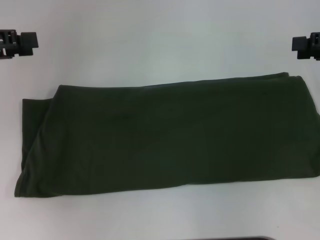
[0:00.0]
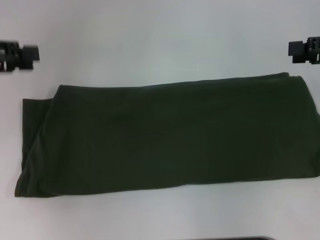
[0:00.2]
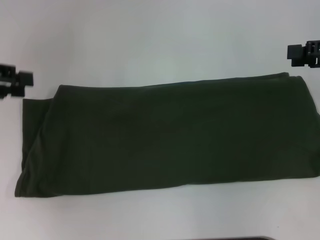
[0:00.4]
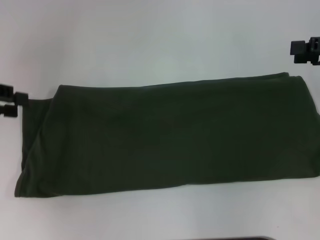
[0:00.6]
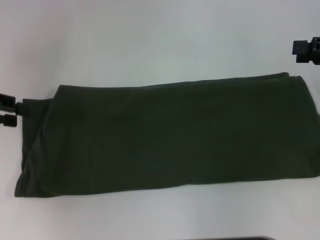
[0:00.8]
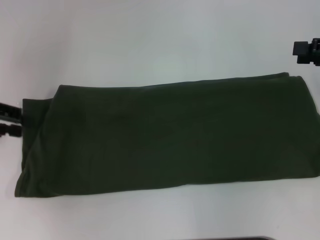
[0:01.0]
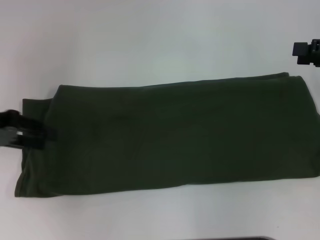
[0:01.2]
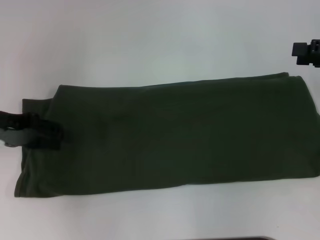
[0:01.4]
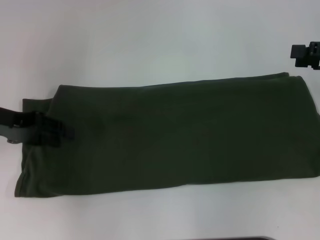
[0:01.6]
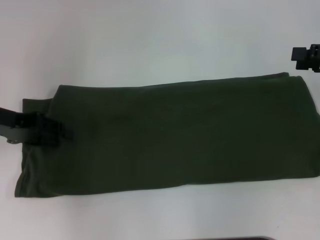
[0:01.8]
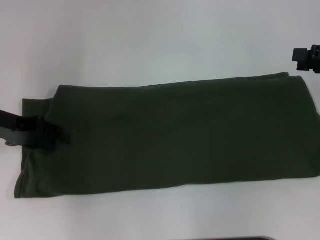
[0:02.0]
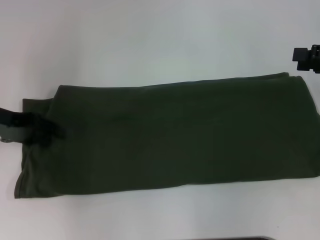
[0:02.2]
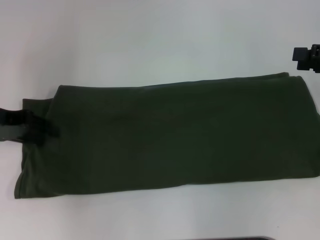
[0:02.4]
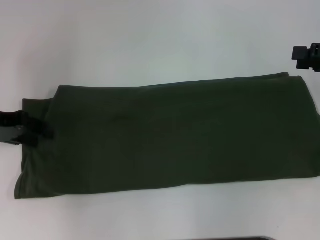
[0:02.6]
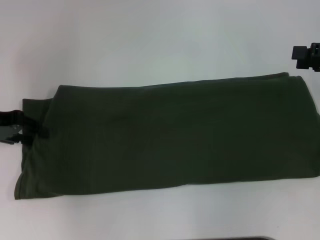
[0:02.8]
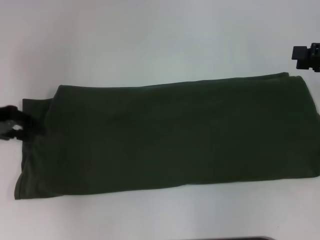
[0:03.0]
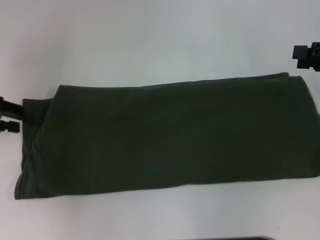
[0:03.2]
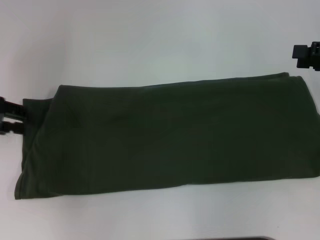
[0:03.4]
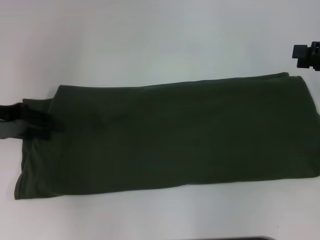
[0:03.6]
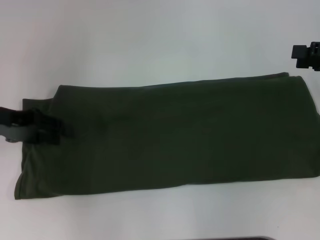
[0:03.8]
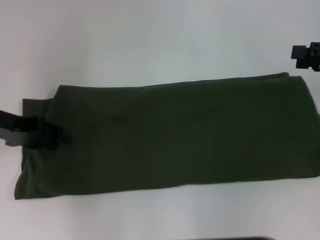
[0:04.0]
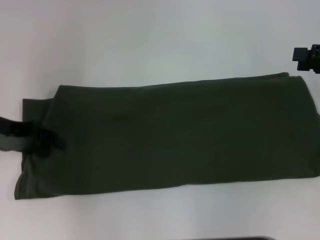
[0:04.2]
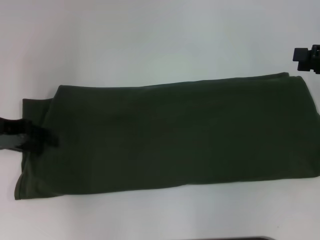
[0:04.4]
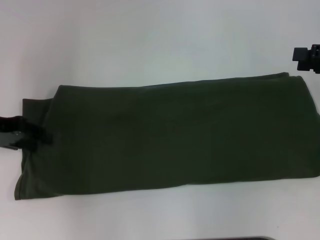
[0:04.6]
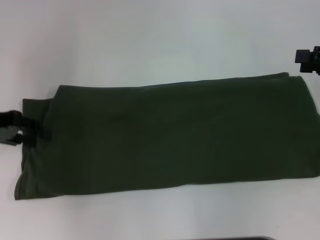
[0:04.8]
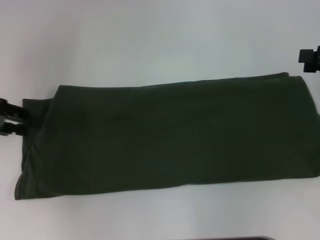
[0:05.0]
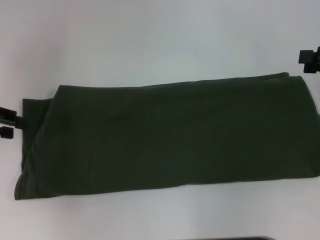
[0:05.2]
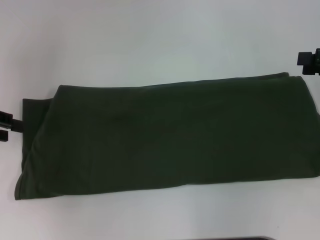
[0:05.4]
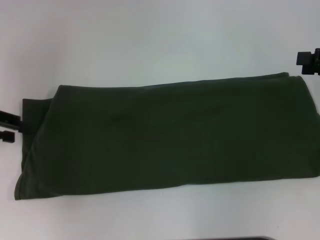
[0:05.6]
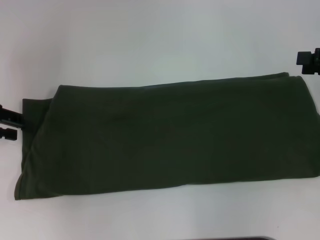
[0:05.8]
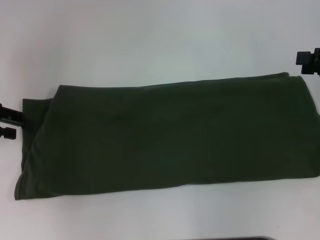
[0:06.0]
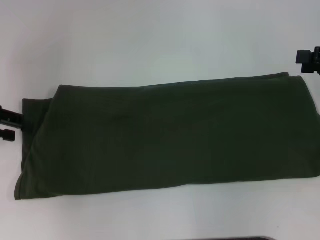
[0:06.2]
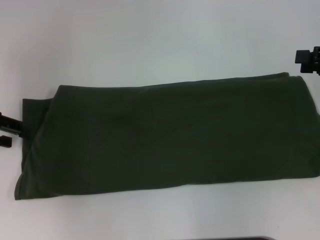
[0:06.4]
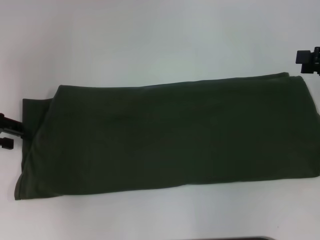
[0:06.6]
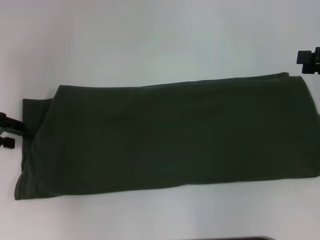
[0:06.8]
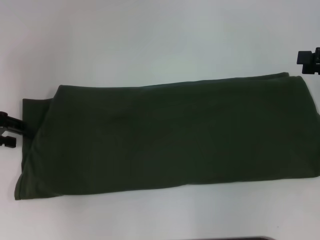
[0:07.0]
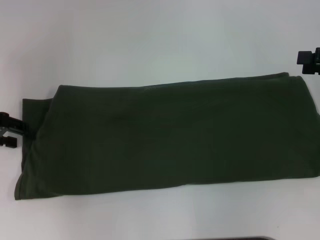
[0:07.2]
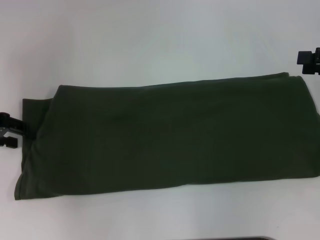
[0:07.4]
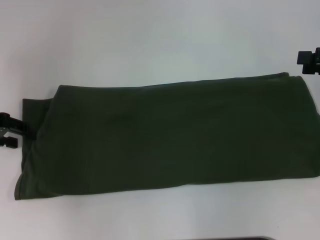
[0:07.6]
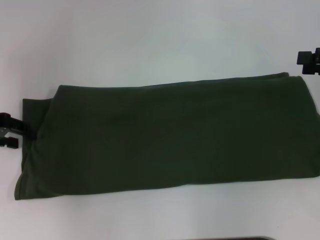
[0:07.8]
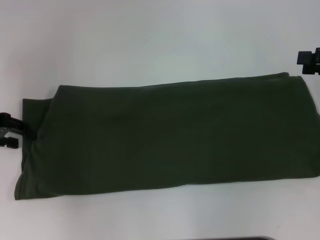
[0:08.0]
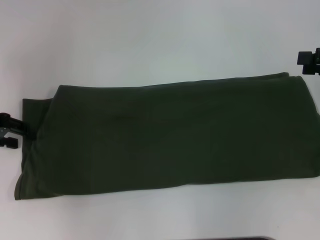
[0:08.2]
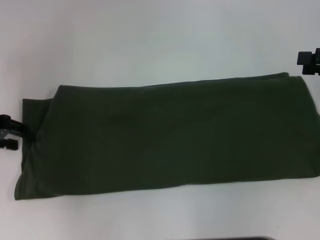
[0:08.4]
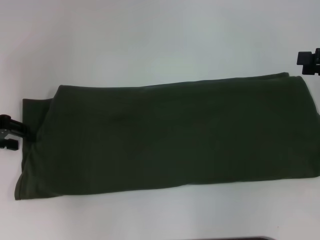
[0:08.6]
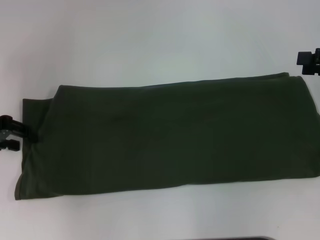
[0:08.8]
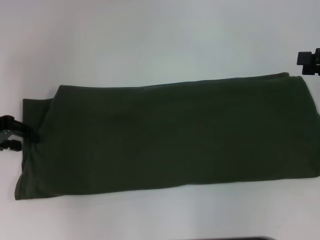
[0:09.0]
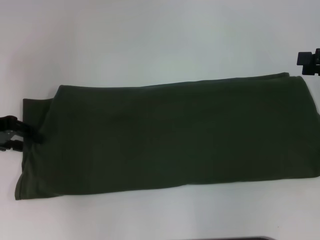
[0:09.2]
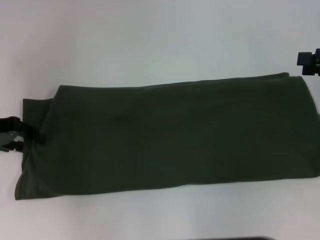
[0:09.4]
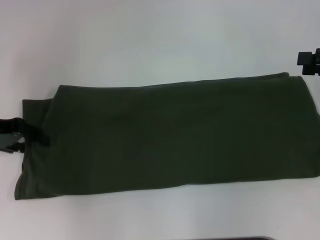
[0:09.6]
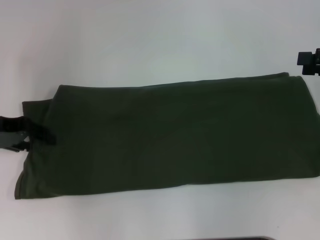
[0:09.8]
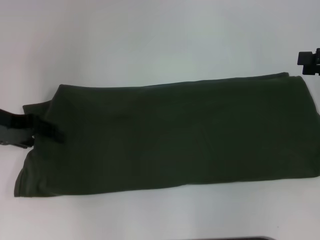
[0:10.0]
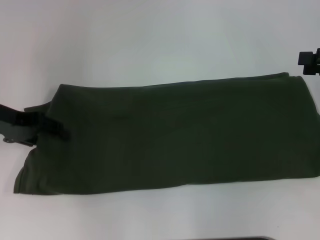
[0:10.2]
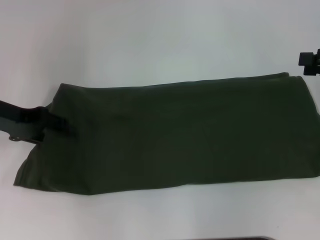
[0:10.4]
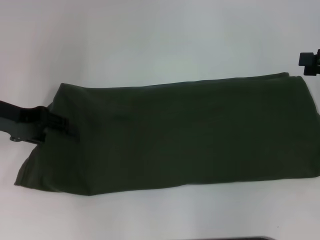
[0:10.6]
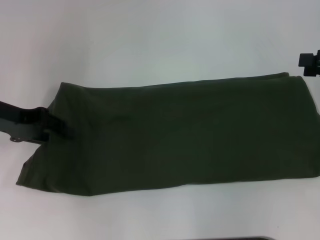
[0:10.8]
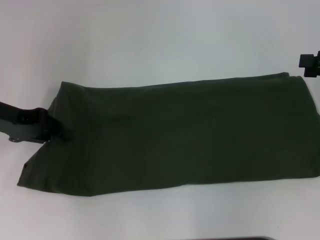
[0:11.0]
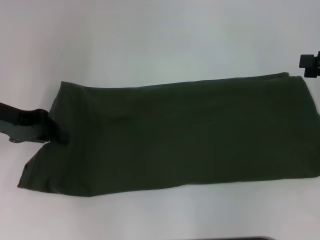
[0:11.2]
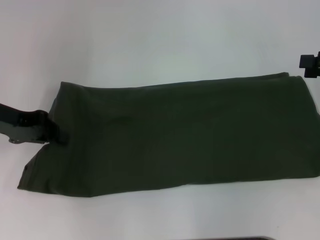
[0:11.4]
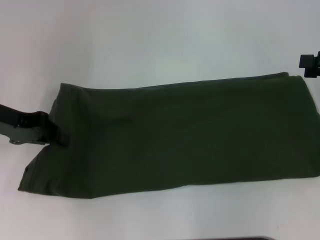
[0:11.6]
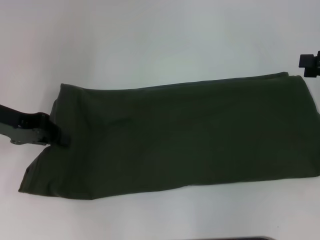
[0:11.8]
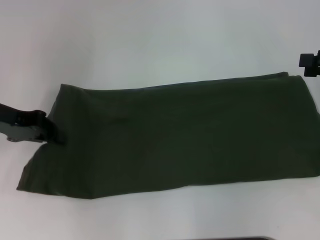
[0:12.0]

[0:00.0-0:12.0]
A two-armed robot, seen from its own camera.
0:00.0 to 0:01.6: The left gripper moves downward, roughly 10 cm.
0:01.6 to 0:04.4: There are only small adjustments of the grippers.
0:04.4 to 0:07.6: The grippers move only a little.
0:07.6 to 0:09.0: Both grippers stay put.
0:09.0 to 0:10.4: There are only small adjustments of the grippers.
0:10.4 to 0:12.0: The left gripper closes.

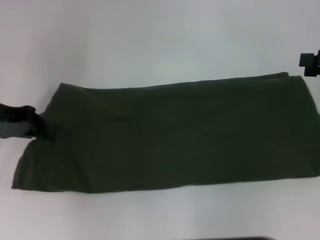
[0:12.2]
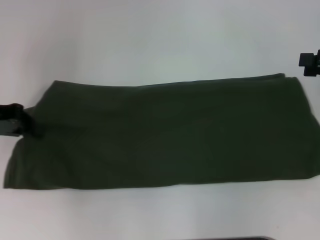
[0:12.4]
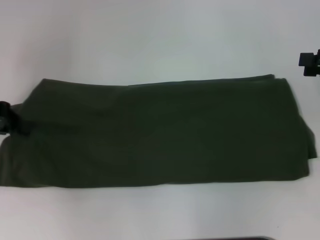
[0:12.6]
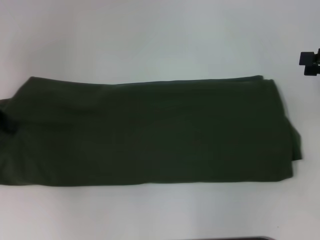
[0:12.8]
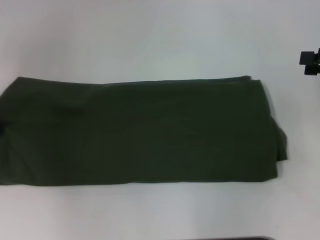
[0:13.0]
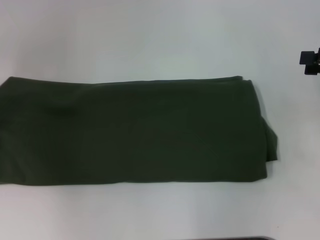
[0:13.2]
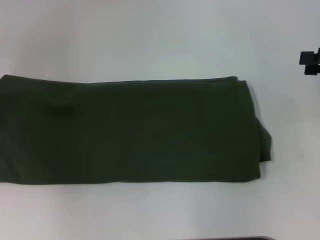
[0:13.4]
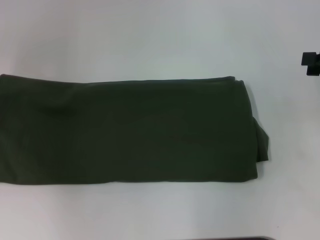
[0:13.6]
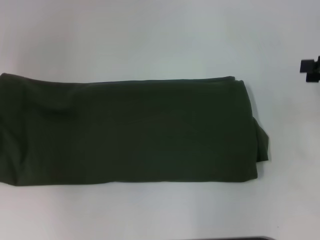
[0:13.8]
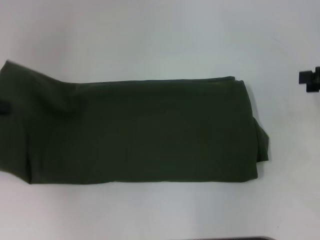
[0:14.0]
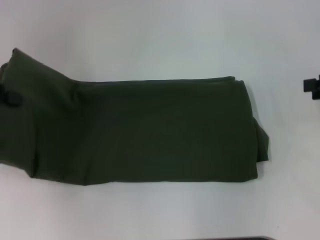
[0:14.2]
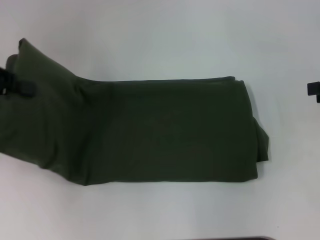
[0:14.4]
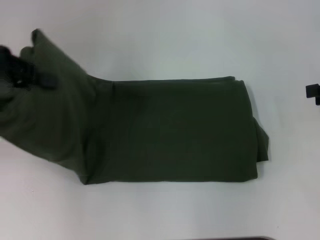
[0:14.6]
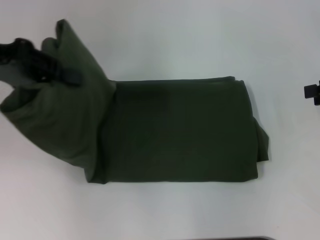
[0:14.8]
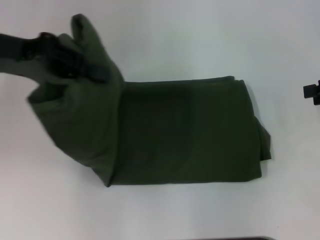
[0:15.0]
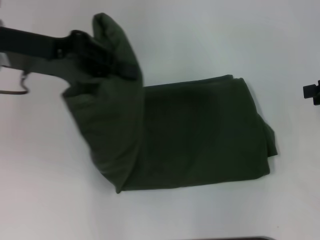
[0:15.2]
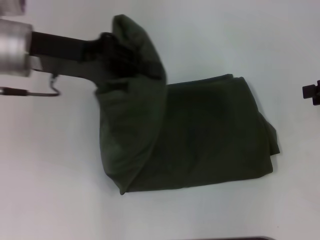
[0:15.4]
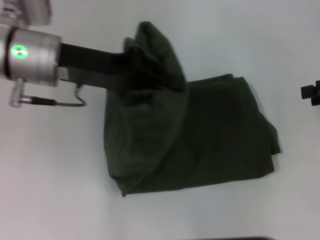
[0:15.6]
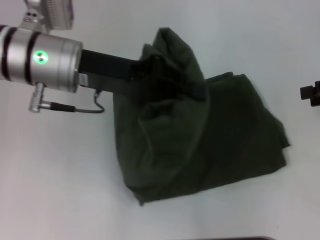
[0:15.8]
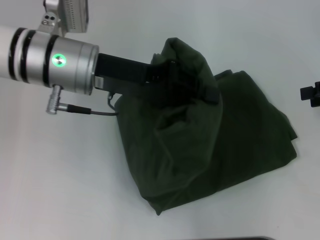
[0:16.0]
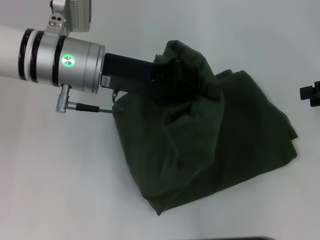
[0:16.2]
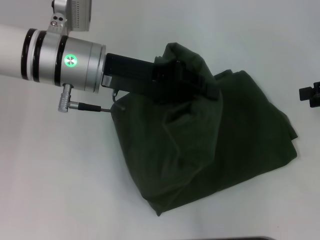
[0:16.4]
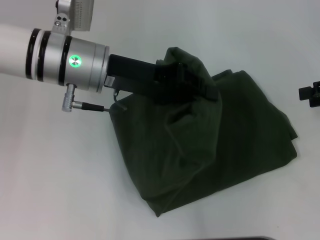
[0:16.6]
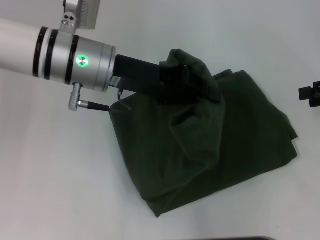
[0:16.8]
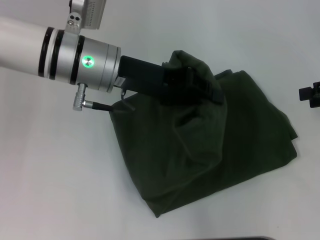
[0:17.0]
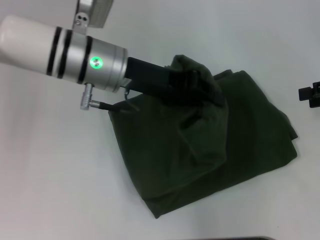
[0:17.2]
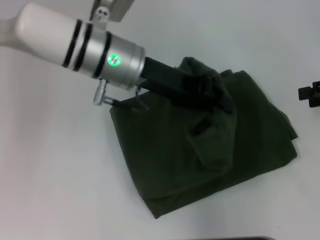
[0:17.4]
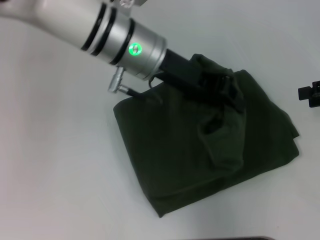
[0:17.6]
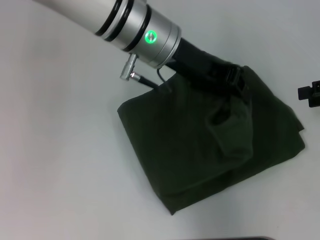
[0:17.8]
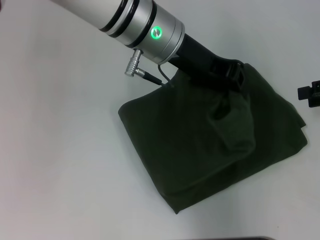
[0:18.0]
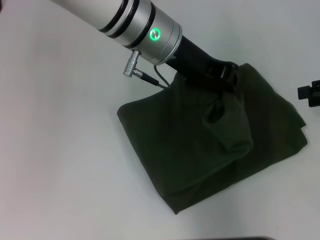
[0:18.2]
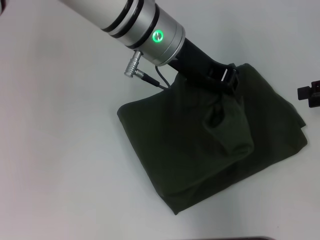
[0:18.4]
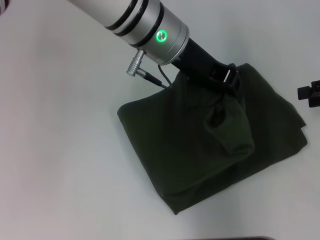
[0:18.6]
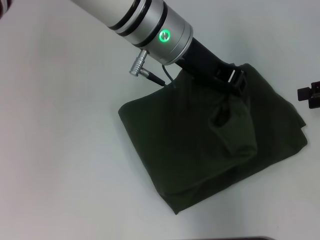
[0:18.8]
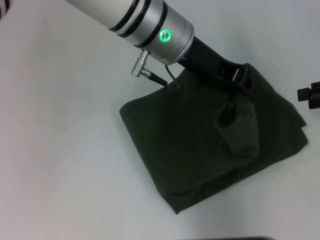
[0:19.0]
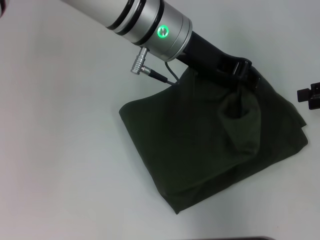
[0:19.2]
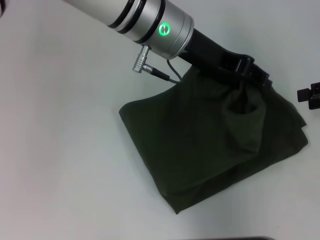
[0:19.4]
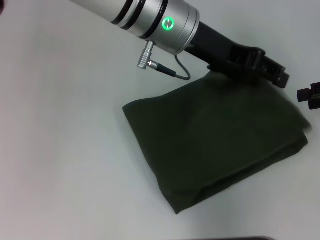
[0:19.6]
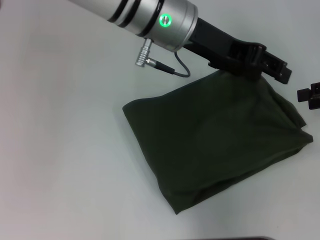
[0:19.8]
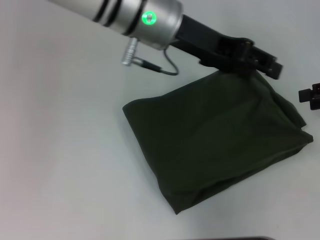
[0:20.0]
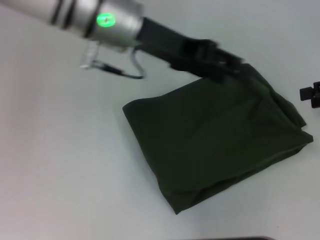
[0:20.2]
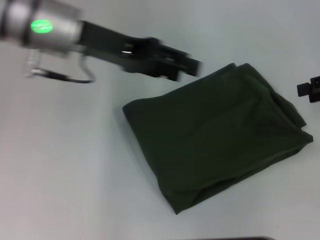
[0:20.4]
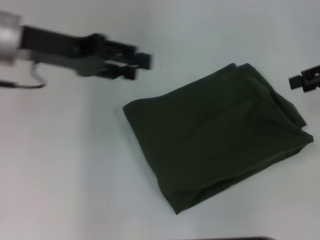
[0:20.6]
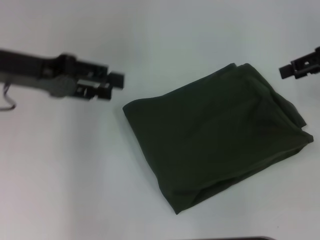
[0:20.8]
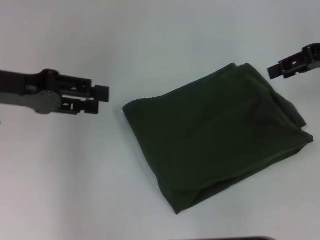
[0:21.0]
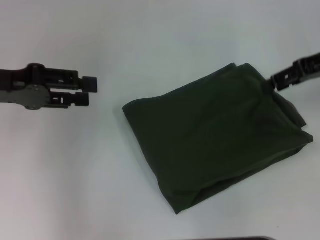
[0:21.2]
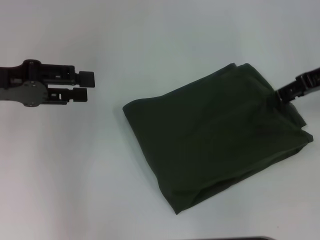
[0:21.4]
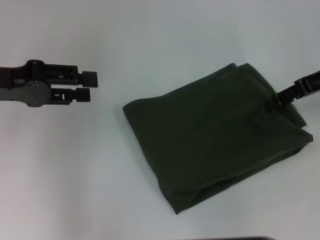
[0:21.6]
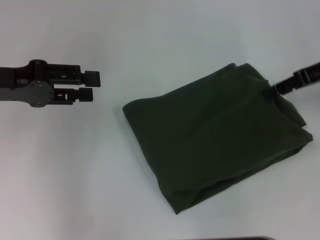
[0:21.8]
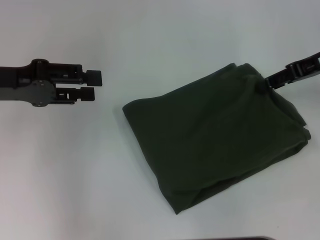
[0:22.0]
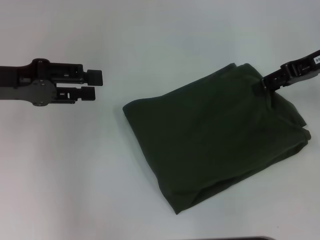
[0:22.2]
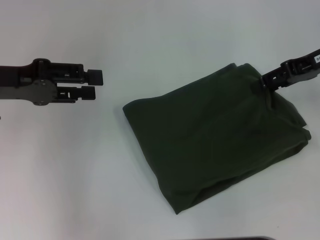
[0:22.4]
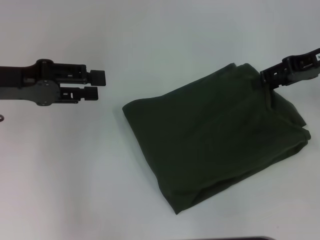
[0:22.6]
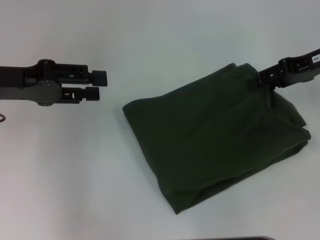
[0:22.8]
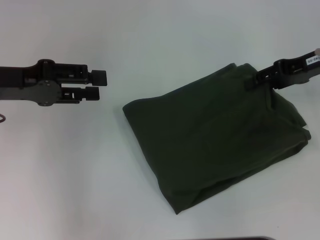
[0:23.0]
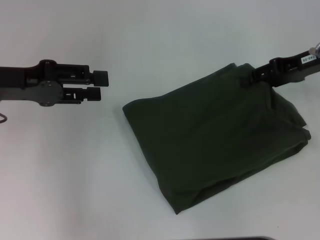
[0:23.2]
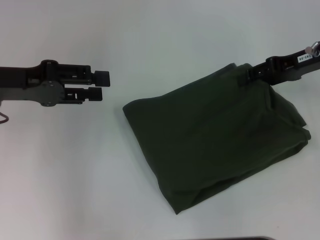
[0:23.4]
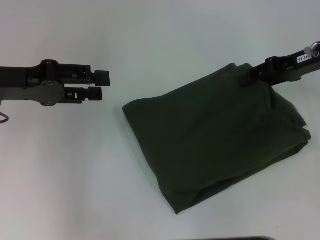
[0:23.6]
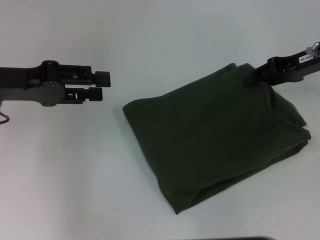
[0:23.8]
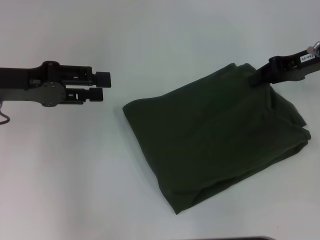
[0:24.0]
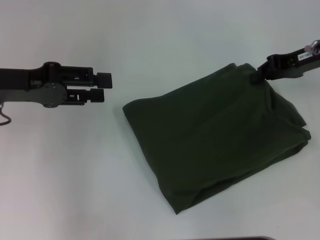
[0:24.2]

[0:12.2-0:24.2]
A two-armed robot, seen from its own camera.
Step, 0:12.2 to 0:19.8: Fold the clothes with your left hand.
0:12.2 to 0:13.8: The left gripper goes roughly 5 cm to the left.
0:13.8 to 0:15.2: The left gripper travels to the right by some 15 cm.
0:15.2 to 0:16.6: The left gripper travels to the right by some 10 cm.
0:16.6 to 0:18.2: The left gripper shifts roughly 10 cm to the right.
0:18.2 to 0:19.8: The left gripper opens its fingers.
0:19.8 to 0:21.2: The left gripper is displaced to the left by about 25 cm. Meanwhile the right gripper shifts approximately 10 cm to the left and forward.
0:21.2 to 0:22.6: There are only small adjustments of the grippers.
0:22.6 to 0:24.2: The right gripper closes up.
